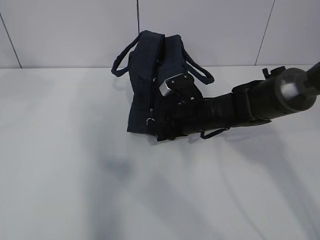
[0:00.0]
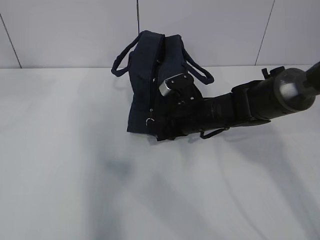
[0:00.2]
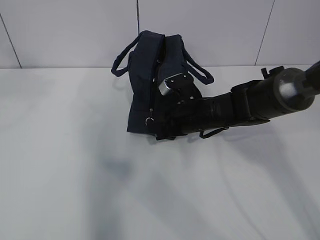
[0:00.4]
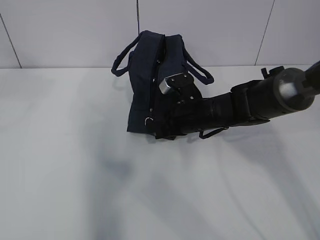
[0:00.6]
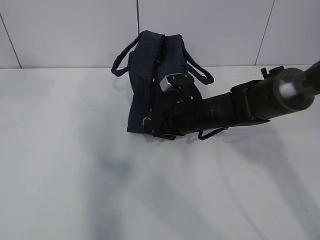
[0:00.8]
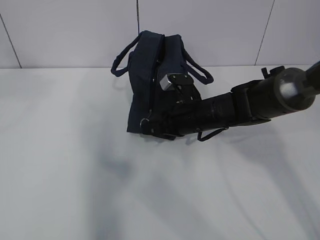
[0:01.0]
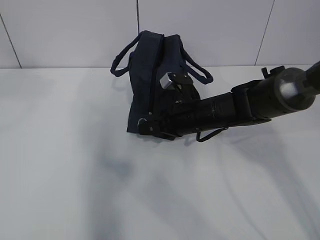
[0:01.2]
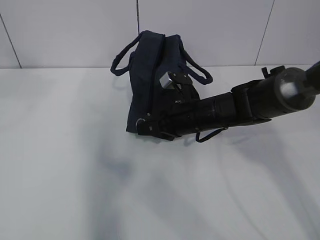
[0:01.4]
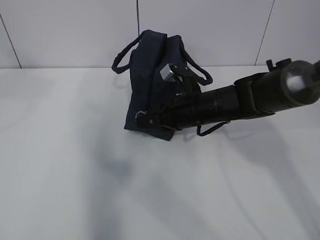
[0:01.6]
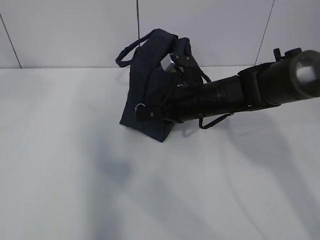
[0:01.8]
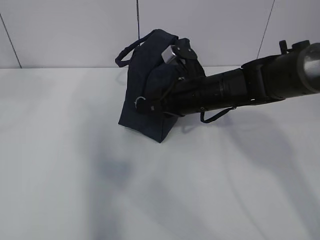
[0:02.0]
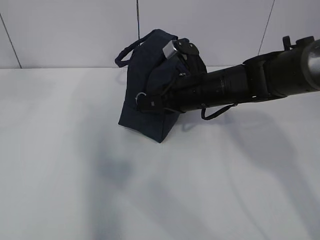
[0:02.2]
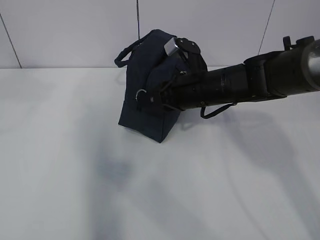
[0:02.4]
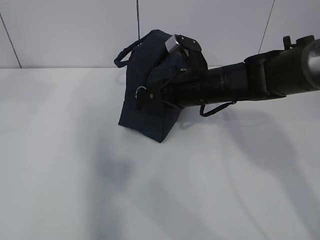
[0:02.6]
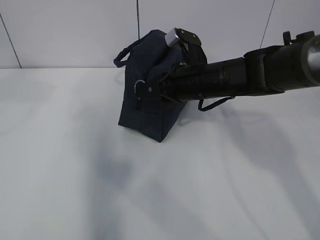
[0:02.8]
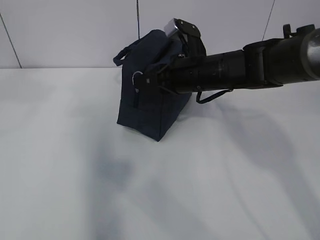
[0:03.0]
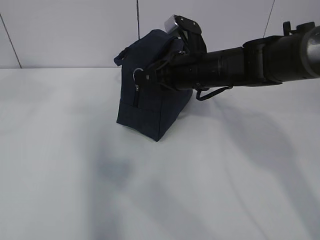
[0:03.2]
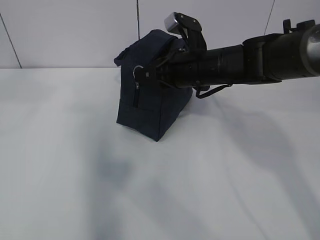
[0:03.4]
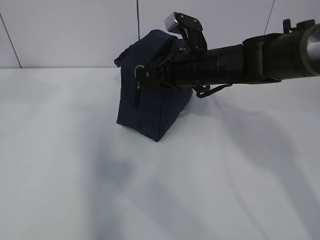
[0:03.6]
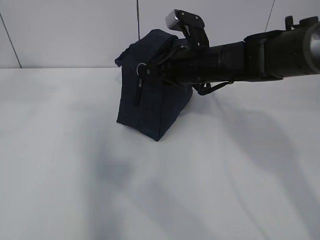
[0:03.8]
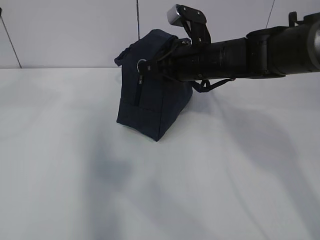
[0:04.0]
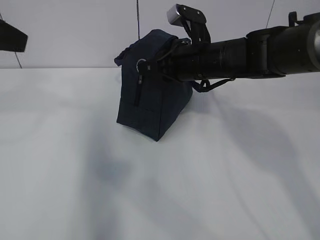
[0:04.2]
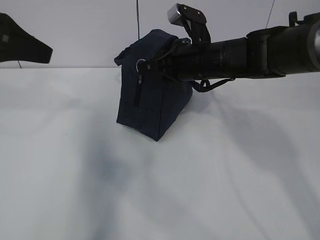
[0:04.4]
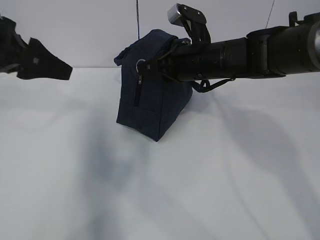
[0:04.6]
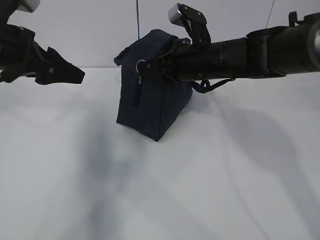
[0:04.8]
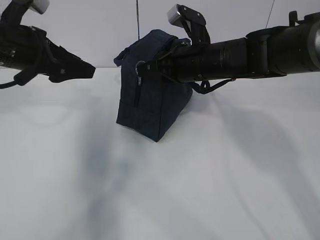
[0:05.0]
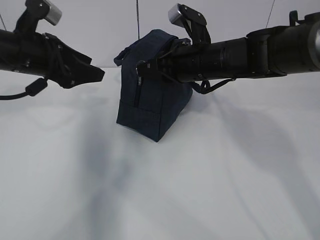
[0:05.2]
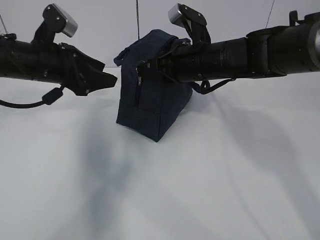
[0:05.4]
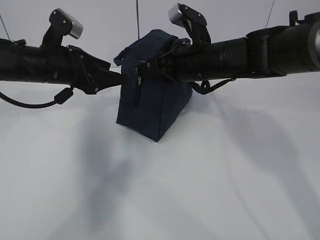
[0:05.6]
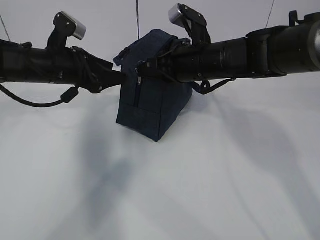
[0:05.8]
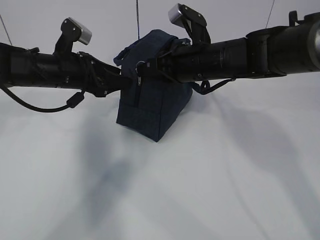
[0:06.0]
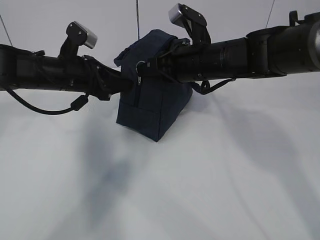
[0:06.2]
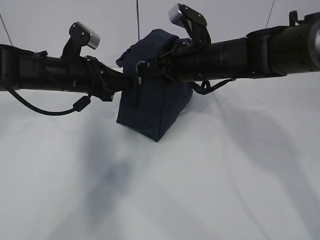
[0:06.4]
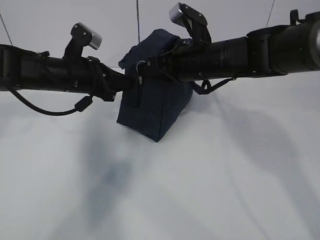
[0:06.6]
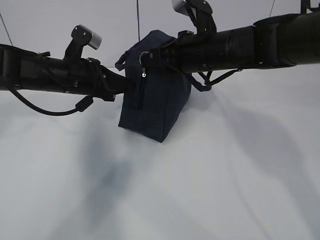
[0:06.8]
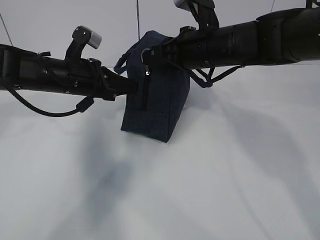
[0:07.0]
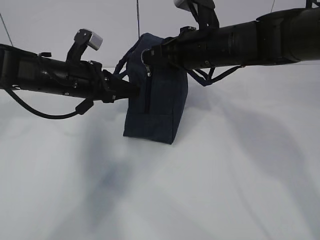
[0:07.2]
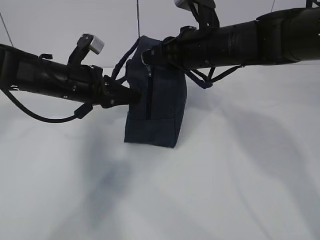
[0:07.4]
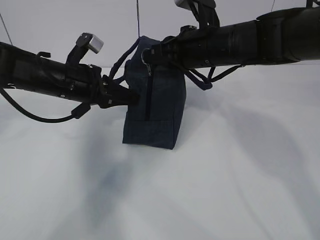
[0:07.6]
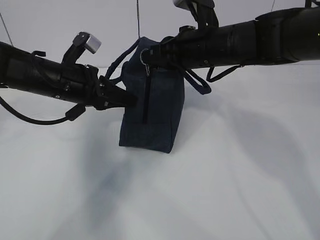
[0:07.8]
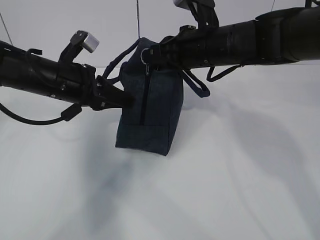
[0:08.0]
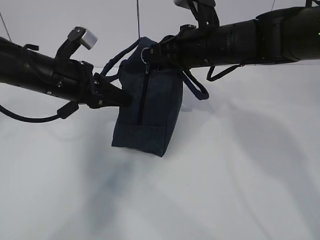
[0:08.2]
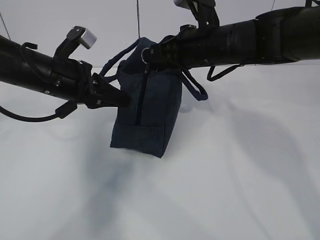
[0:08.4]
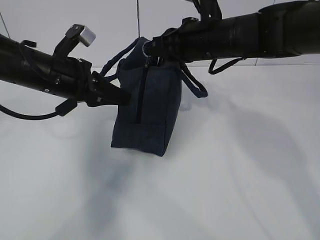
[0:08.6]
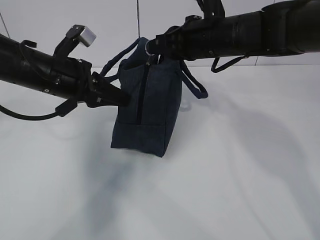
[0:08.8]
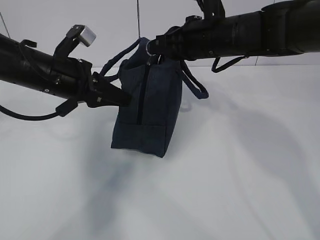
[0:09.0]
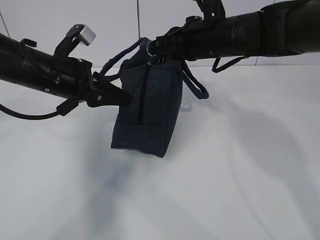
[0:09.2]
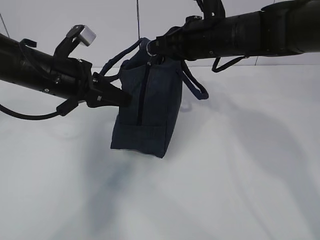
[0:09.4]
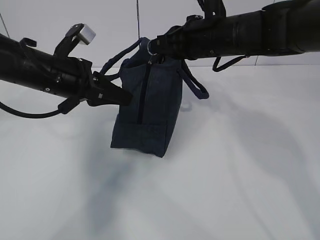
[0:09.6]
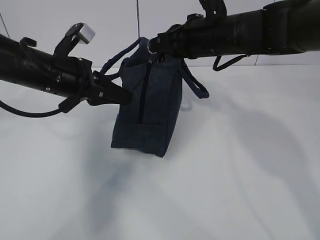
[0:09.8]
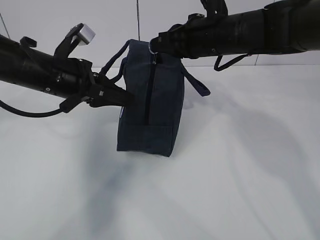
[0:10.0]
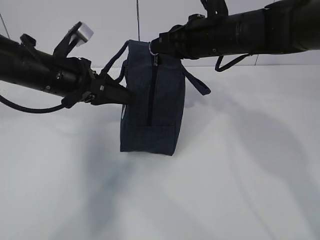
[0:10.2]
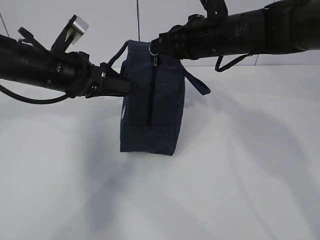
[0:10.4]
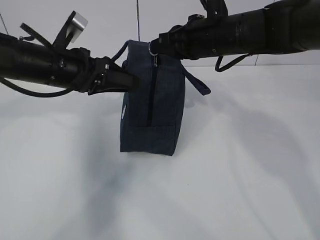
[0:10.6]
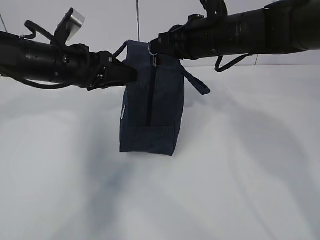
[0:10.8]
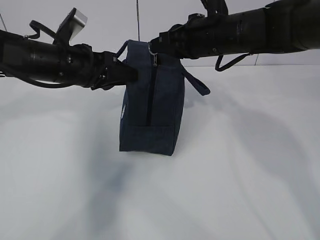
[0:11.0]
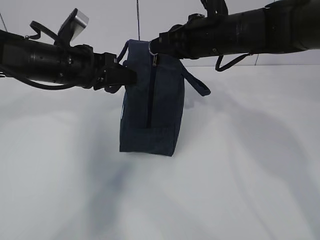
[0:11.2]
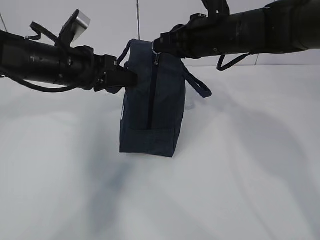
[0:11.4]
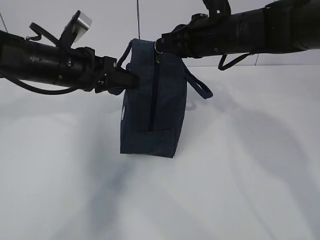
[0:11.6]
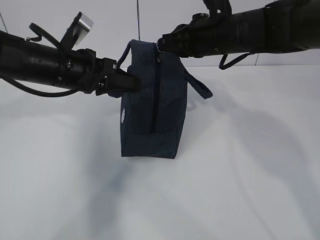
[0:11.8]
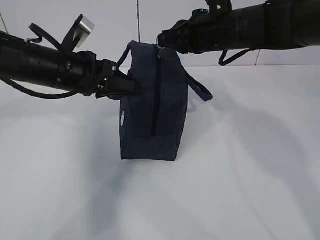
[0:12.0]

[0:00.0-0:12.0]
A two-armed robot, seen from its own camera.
Step, 0:10.0 to 0:11.2: Grab the lunch bag with your left hand.
0:00.0 to 0:01.6: The grippers make only small movements.
0:01.6 to 0:03.0: The right gripper heads upward, covering about 5 cm.
0:03.0 to 0:04.4: The left gripper is displaced downward and forward by about 10 cm.
0:04.4 to 0:06.0: The left gripper shifts some 20 cm downward, forward and to the right.
0:06.0 to 0:07.6: The left gripper closes its fingers.
0:07.6 to 0:09.0: The grippers make only small movements.
0:09.0 to 0:10.4: The left gripper opens up.
0:10.4 to 0:12.0: The left gripper closes its fingers.

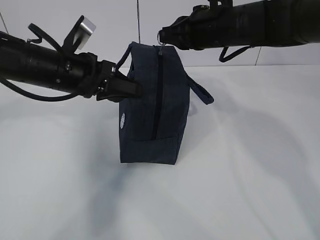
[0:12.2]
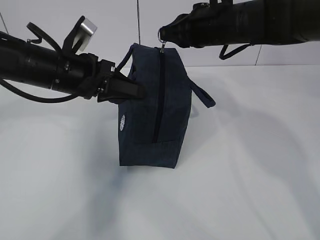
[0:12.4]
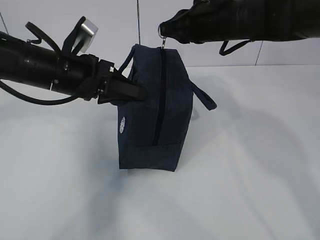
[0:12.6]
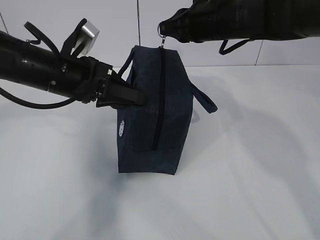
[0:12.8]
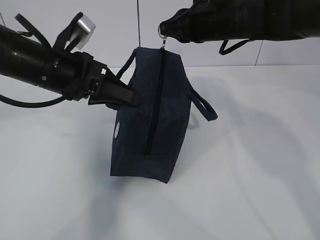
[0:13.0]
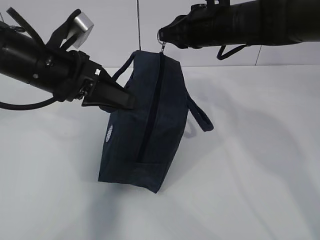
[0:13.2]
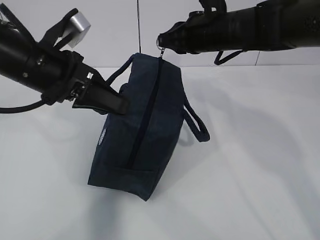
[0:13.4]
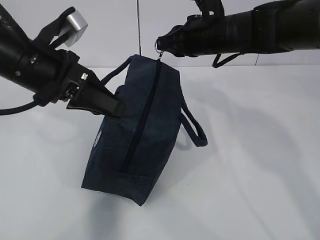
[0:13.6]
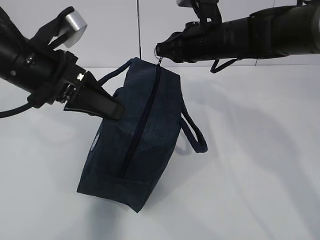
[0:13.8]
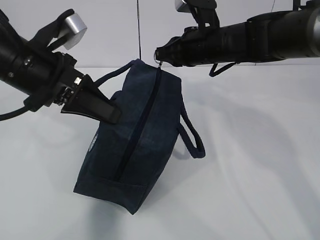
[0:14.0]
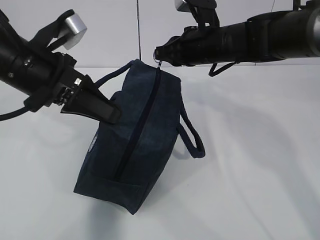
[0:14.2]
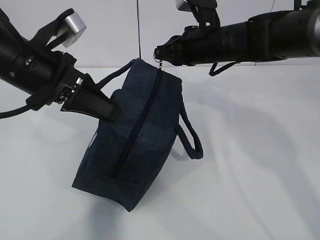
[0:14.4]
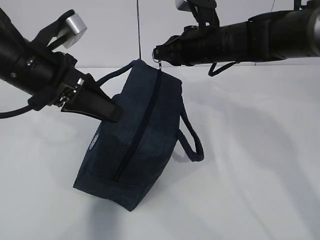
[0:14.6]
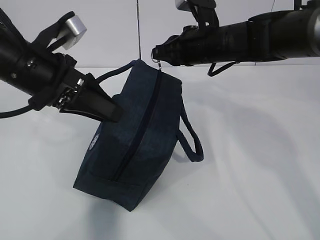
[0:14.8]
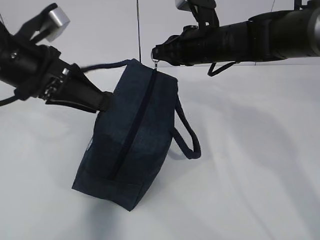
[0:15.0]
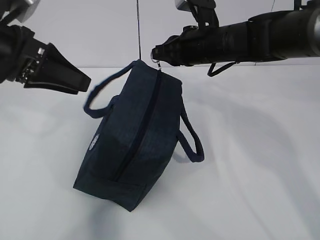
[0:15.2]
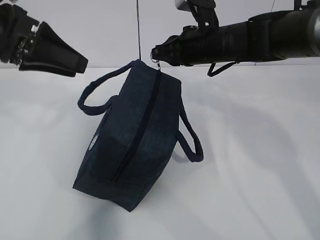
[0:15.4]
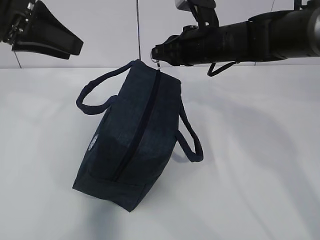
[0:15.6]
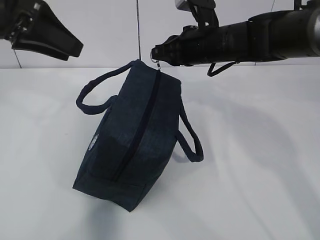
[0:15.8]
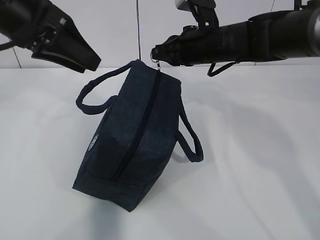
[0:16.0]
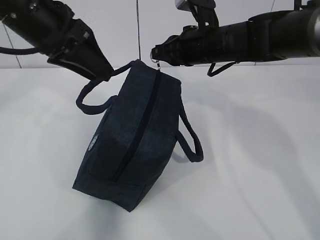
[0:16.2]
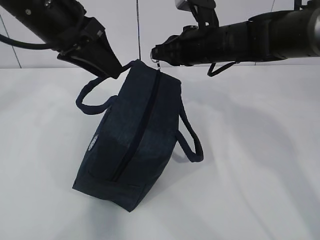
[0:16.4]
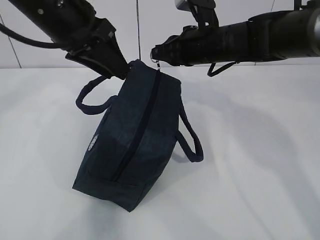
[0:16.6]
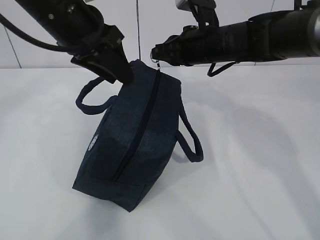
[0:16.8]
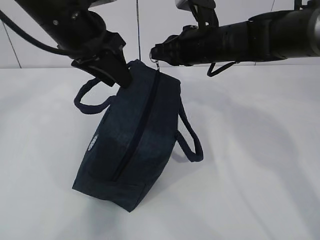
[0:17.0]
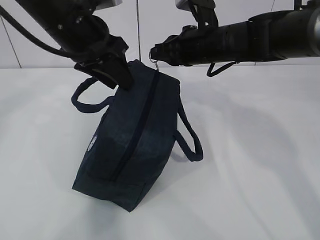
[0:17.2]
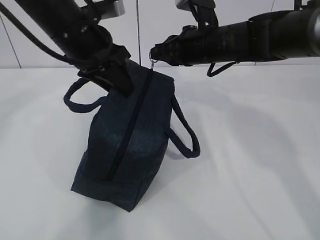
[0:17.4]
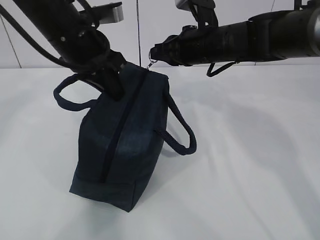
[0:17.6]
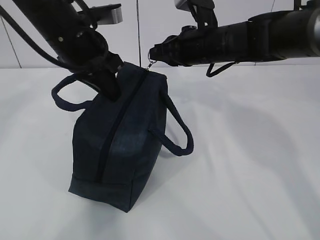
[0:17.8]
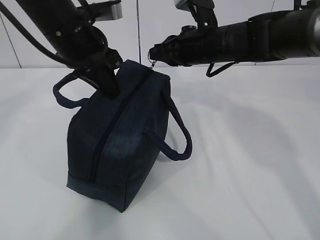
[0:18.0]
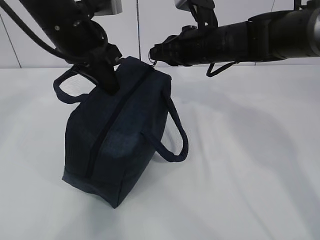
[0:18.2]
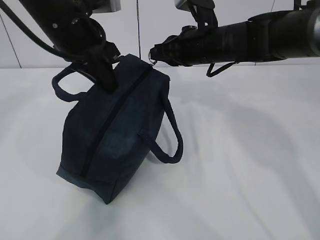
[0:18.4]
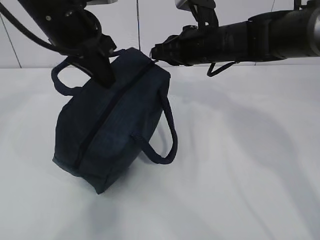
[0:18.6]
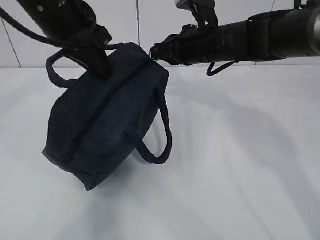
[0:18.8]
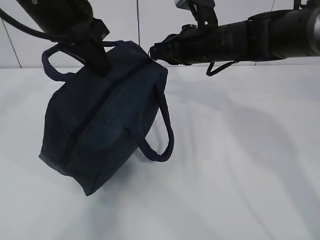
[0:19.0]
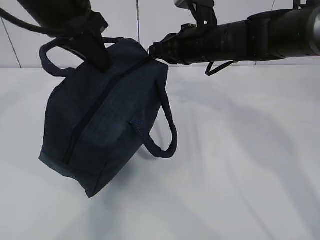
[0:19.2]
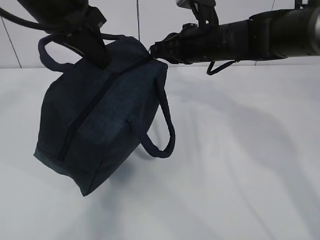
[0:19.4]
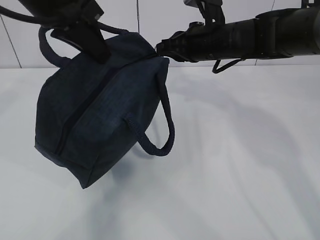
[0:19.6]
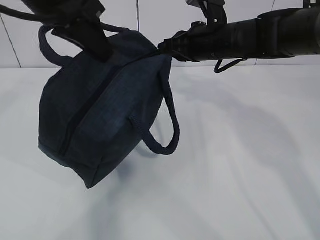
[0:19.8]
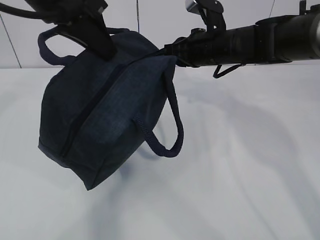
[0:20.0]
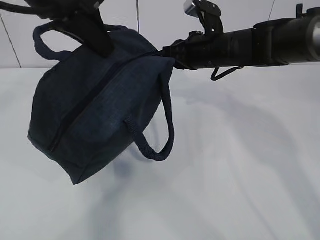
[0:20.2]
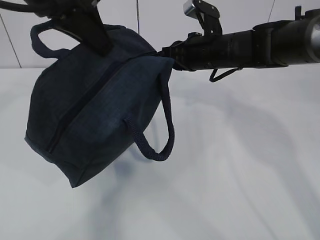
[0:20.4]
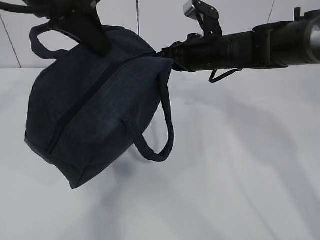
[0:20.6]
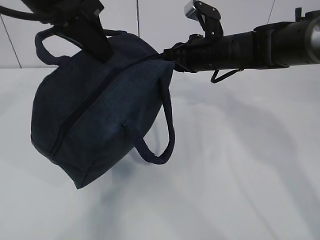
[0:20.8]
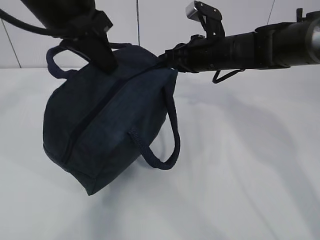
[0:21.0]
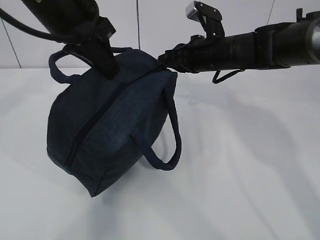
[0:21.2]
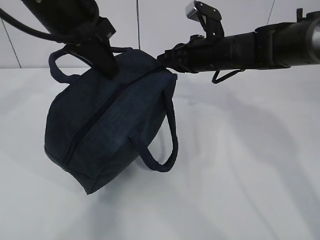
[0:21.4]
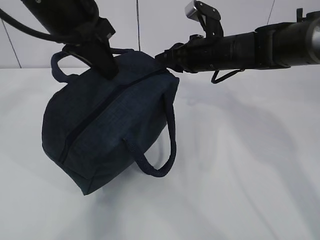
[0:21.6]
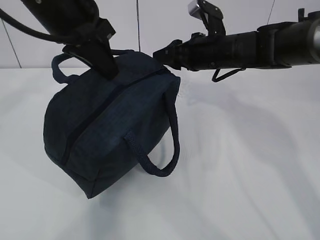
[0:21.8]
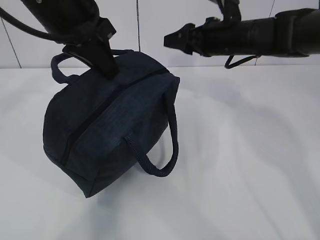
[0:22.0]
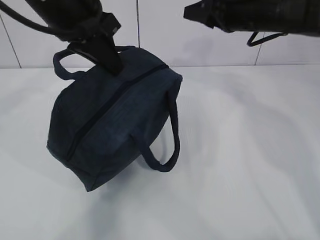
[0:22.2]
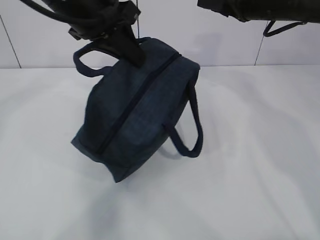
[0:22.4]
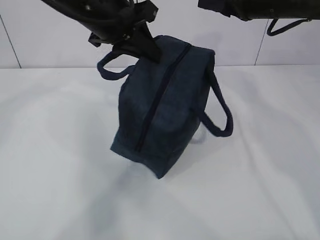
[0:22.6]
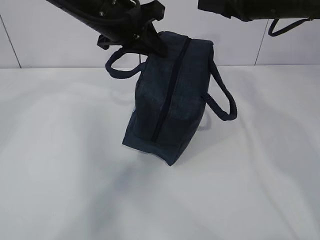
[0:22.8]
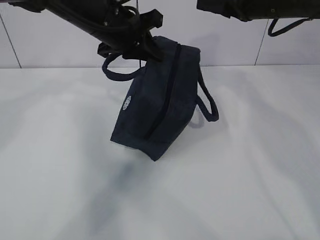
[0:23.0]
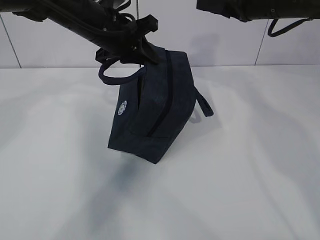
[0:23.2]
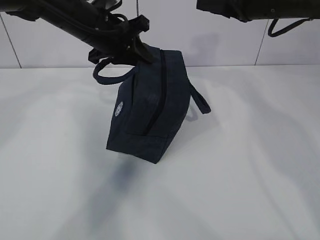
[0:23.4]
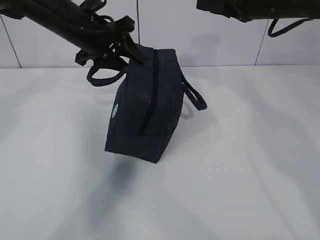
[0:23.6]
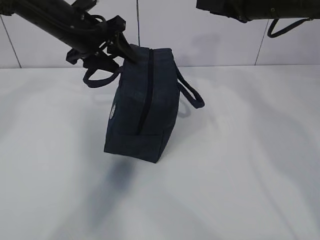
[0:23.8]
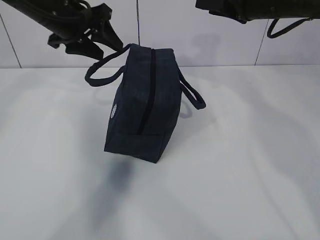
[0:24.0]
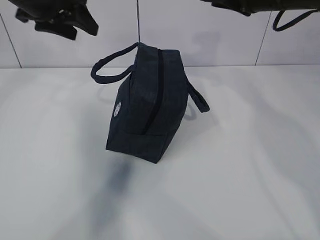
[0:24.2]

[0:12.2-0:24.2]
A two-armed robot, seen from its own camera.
0:12.2 to 0:13.8: The left gripper moves backward, roughly 5 cm.
0:13.8 to 0:15.2: The left gripper heads to the left, covering roughly 5 cm, and opens up.
0:15.2 to 0:16.6: The left gripper moves to the right, some 10 cm.
0:16.6 to 0:18.2: The left gripper closes up.
0:18.2 to 0:19.8: The left gripper is displaced upward by about 5 cm.
0:19.8 to 0:21.2: The grippers stay close to where they were, moving slightly.
0:21.2 to 0:22.6: The left gripper changes place by about 5 cm. The right gripper shifts approximately 10 cm upward and to the right, and opens its fingers.
0:22.6 to 0:24.2: The left gripper travels to the left by approximately 10 cm, and opens up.
